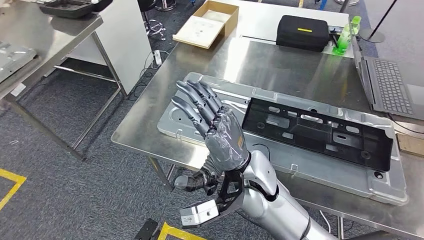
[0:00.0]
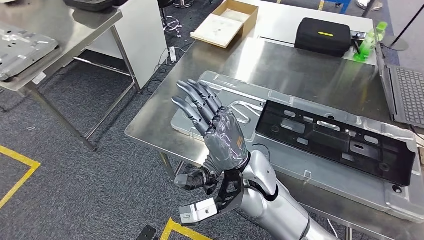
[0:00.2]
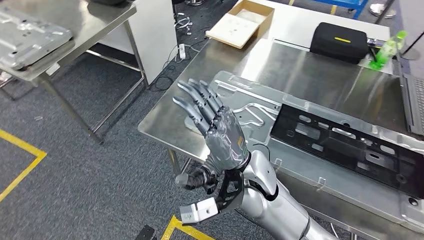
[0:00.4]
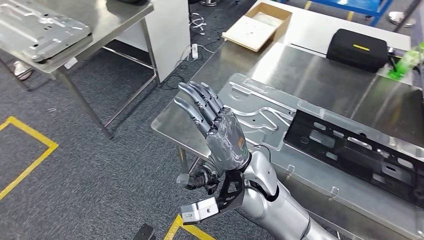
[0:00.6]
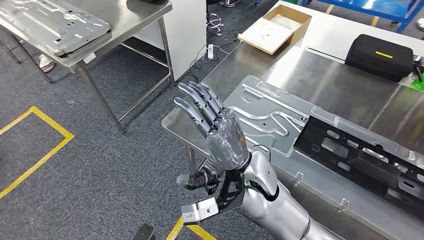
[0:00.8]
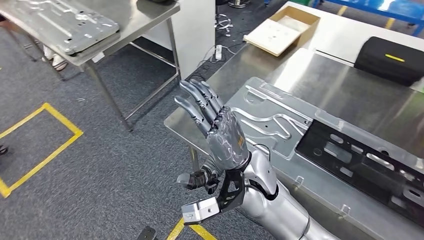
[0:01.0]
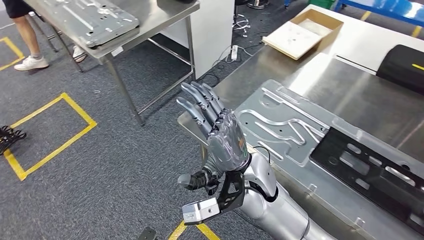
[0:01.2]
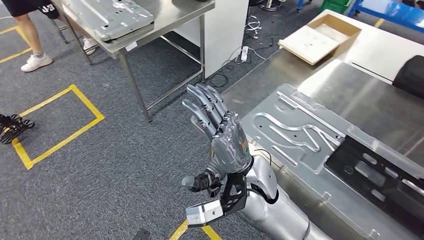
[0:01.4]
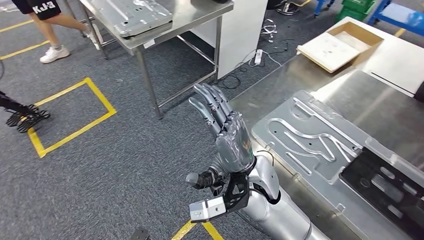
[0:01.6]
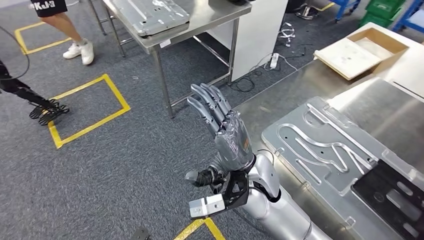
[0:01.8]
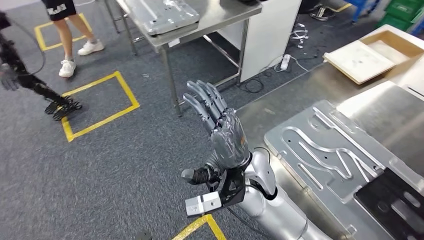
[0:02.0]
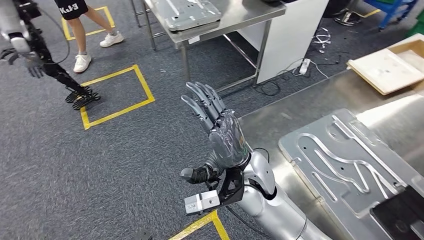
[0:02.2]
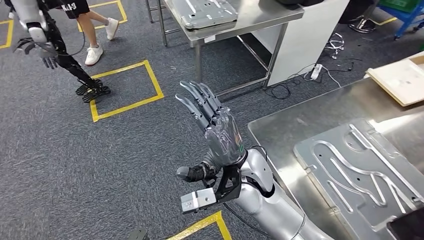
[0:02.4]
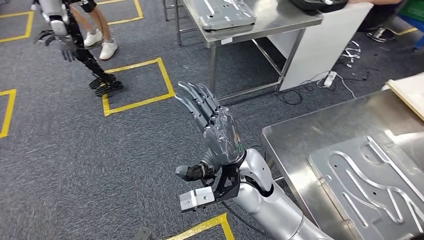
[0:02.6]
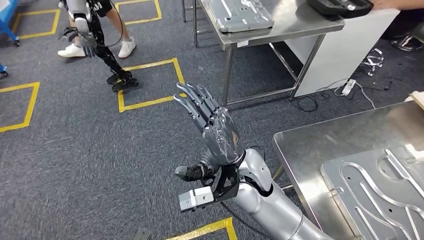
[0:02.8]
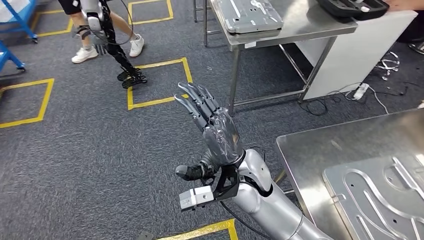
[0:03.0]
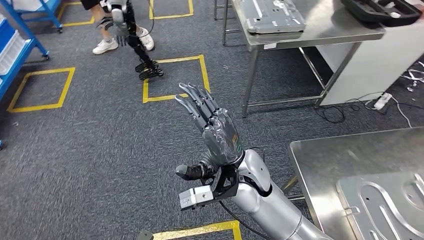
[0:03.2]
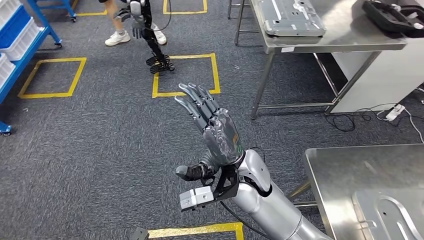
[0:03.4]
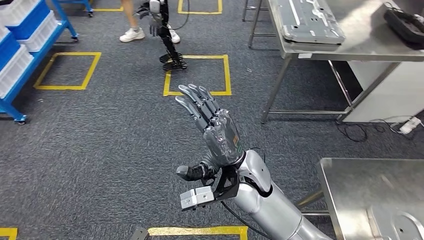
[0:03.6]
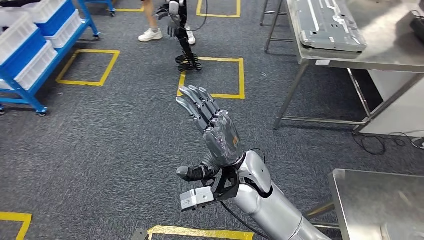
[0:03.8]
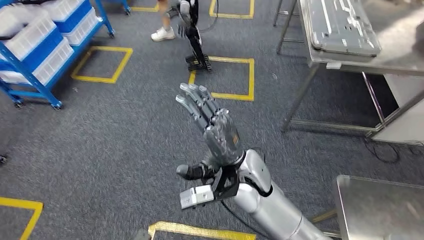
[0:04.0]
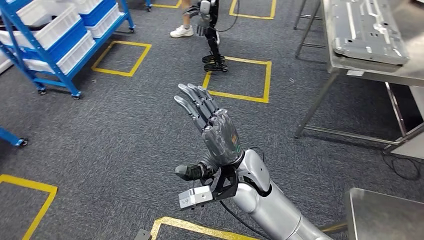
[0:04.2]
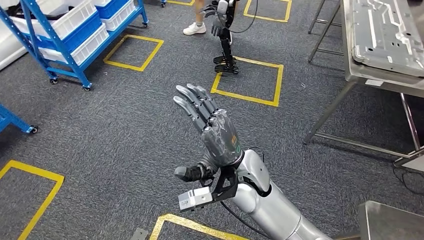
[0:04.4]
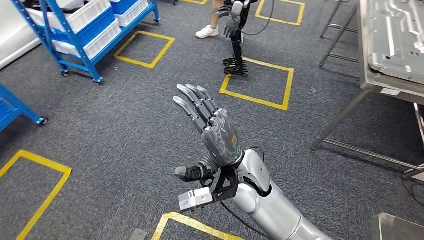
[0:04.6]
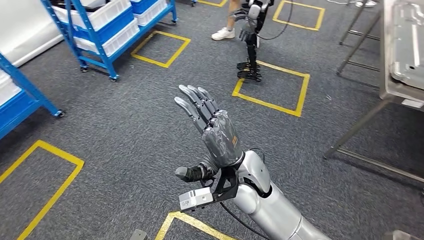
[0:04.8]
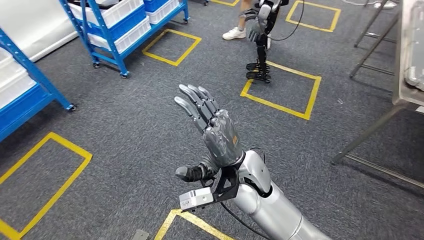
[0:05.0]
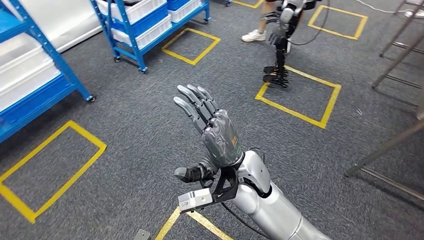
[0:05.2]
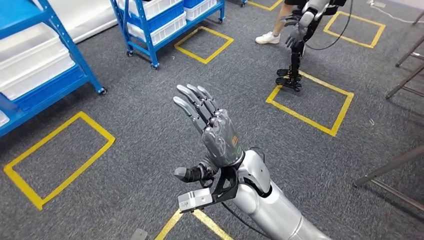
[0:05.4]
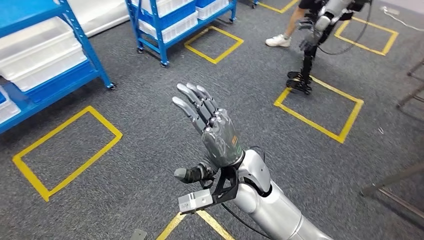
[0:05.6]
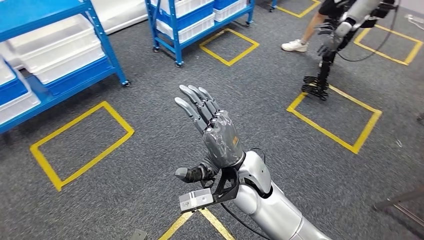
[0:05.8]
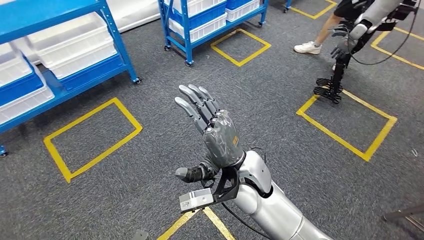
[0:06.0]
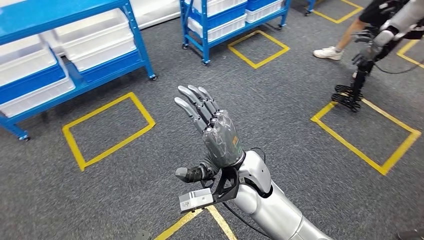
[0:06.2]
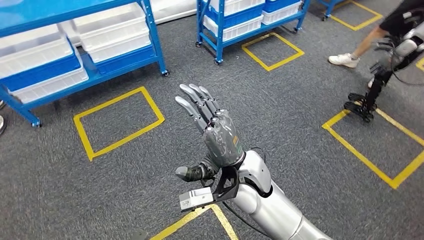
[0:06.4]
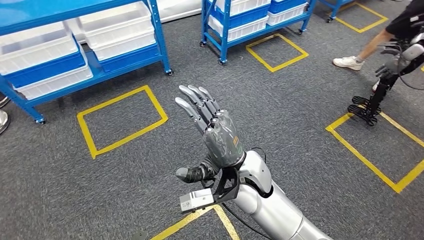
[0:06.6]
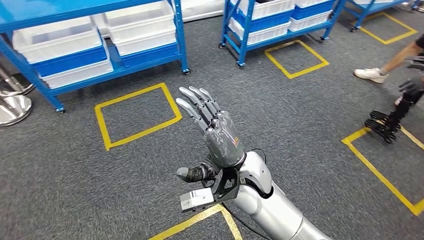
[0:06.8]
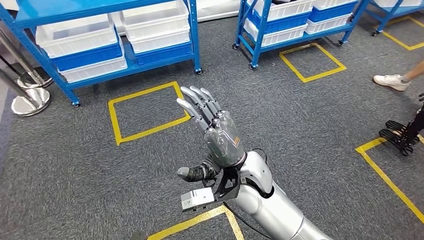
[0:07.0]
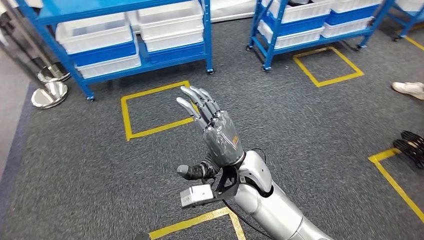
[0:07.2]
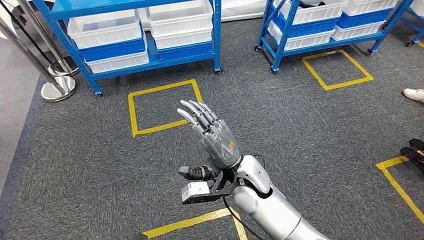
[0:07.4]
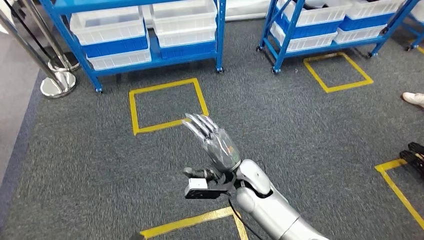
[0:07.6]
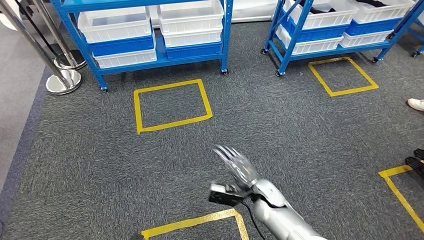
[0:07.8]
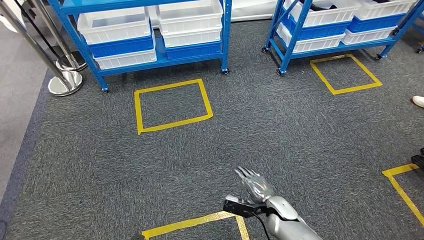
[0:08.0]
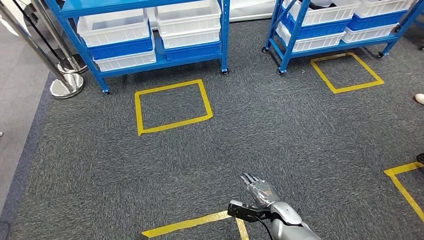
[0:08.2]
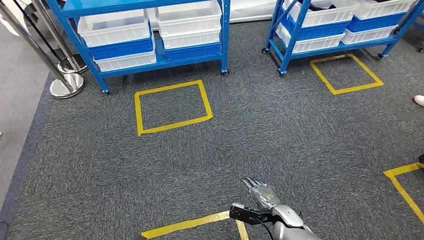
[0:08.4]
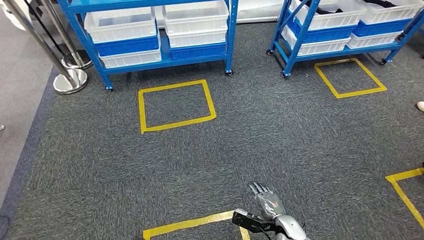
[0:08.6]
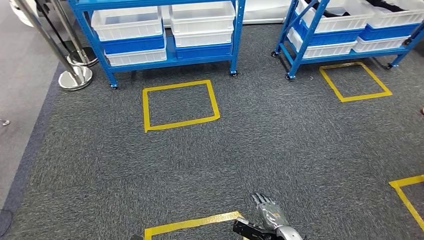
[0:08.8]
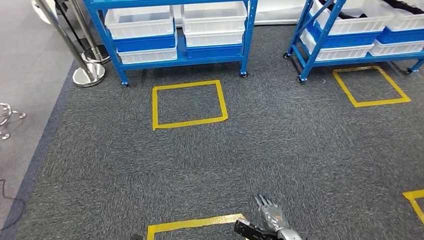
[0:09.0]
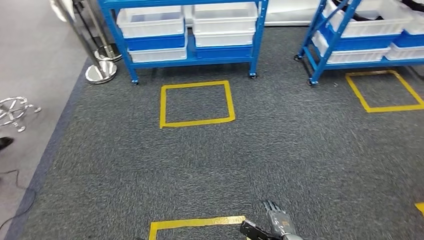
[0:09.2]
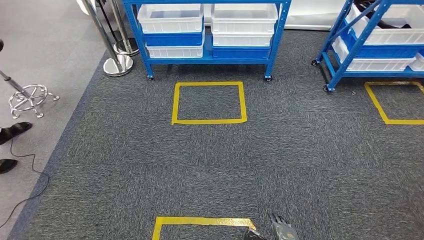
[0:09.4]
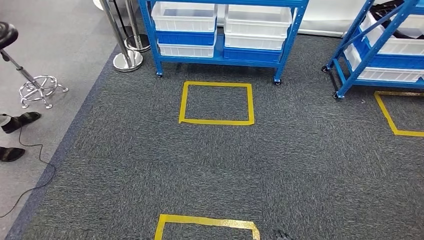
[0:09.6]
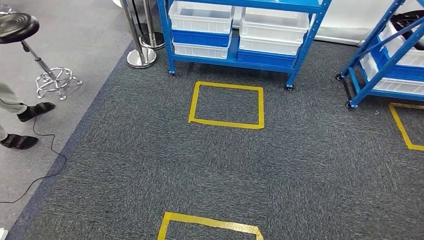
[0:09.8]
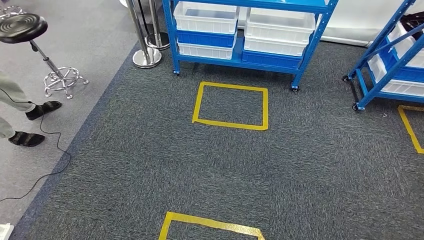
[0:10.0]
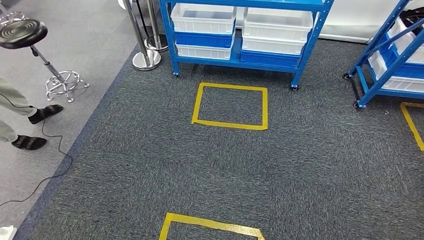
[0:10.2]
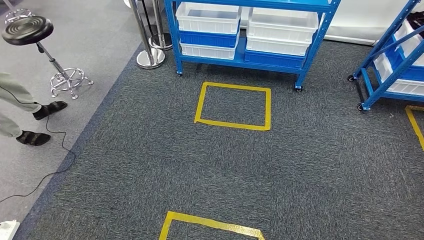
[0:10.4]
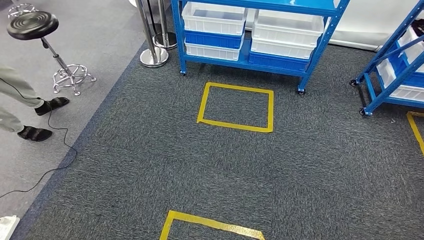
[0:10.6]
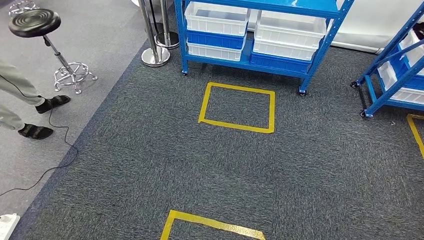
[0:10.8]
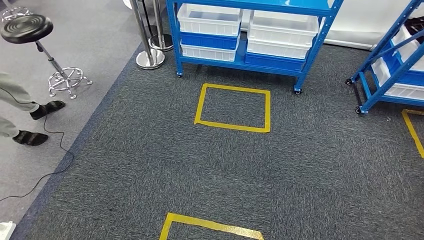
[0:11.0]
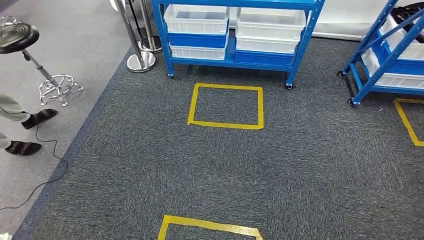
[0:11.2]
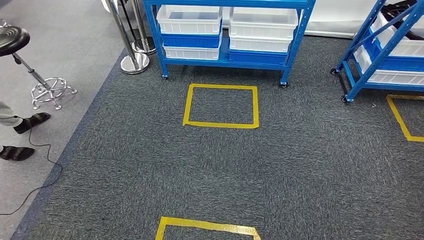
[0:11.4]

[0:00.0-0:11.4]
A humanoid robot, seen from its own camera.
Step, 0:00.6 to 0:11.4: Move to the initial position of the shelf.
